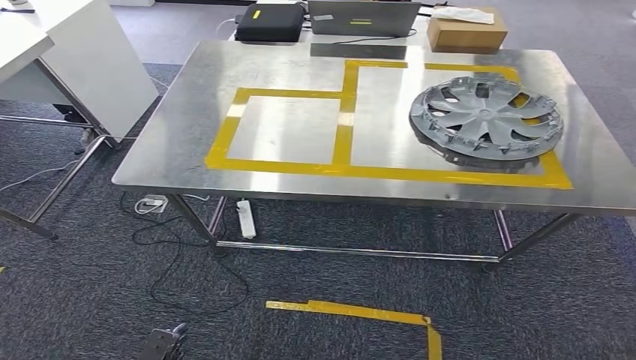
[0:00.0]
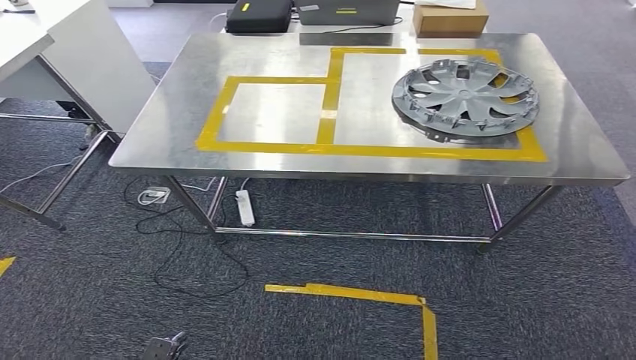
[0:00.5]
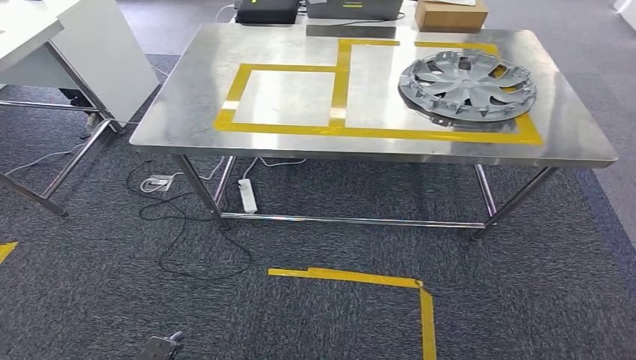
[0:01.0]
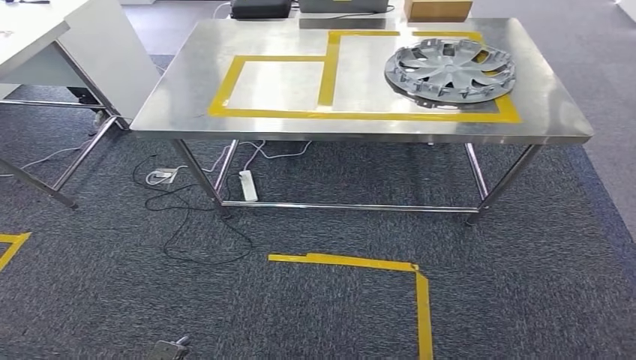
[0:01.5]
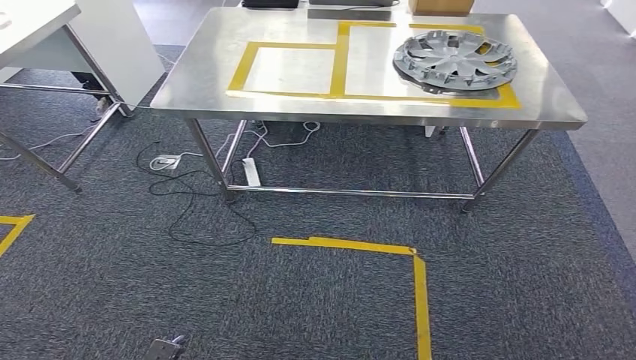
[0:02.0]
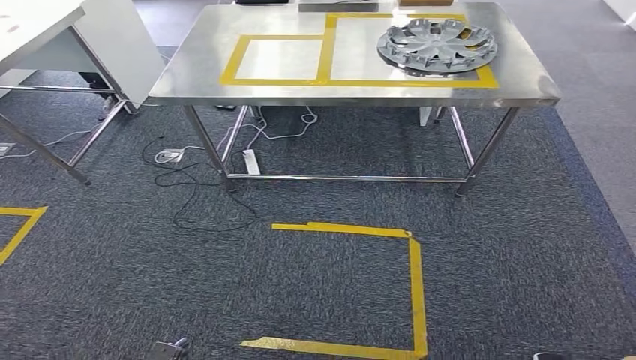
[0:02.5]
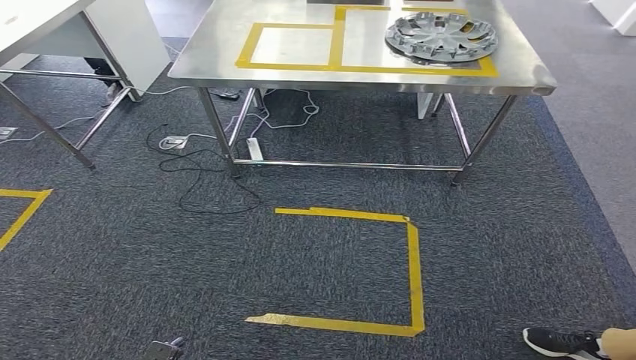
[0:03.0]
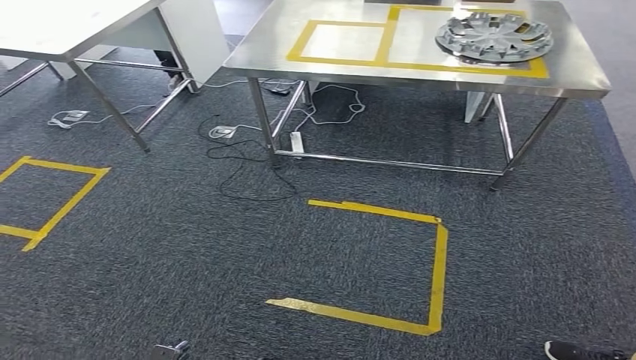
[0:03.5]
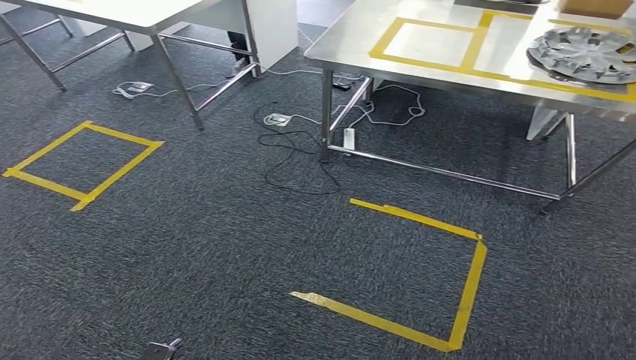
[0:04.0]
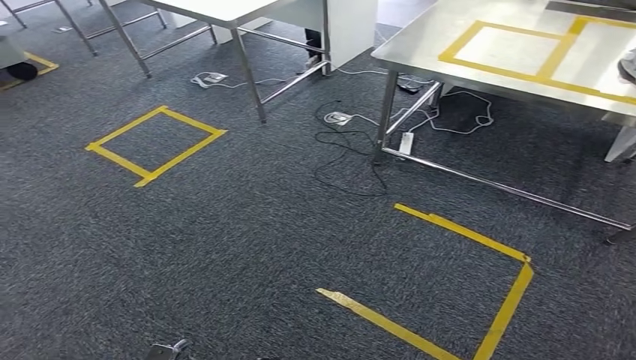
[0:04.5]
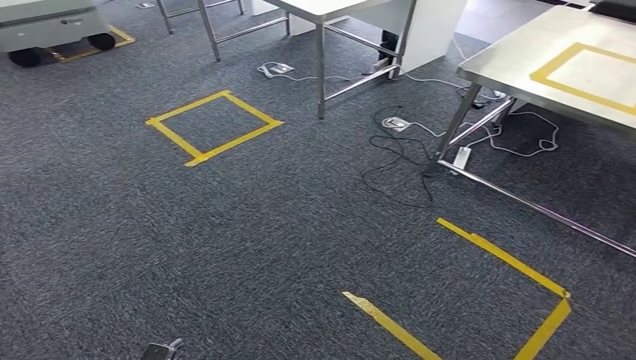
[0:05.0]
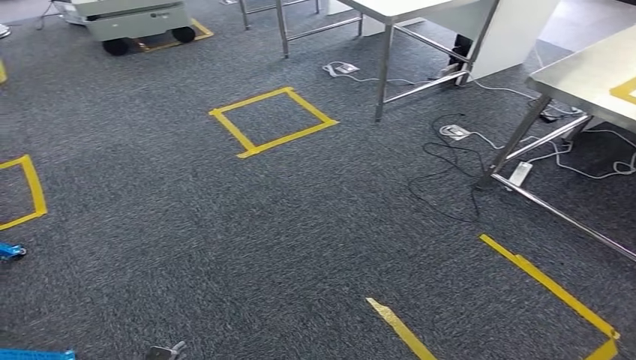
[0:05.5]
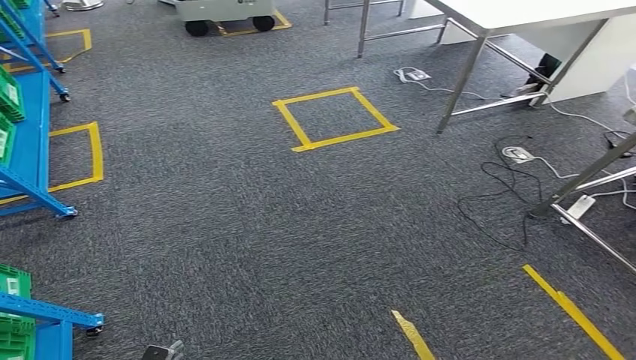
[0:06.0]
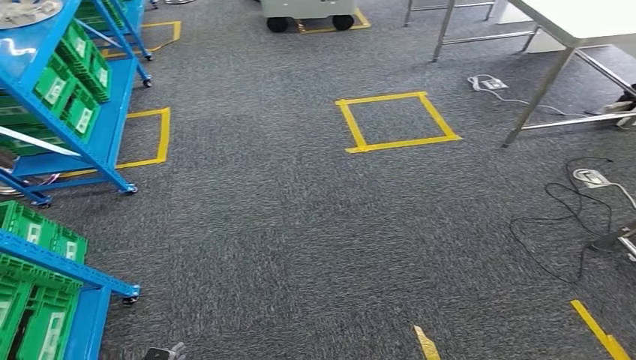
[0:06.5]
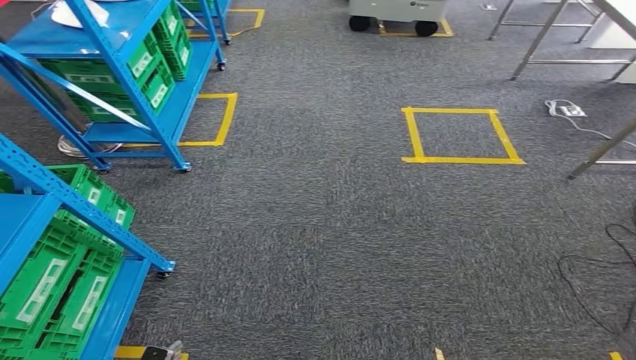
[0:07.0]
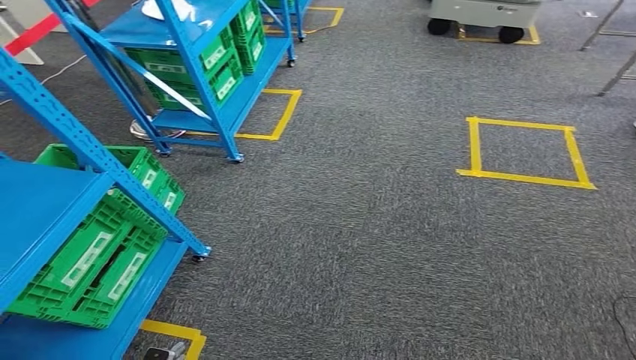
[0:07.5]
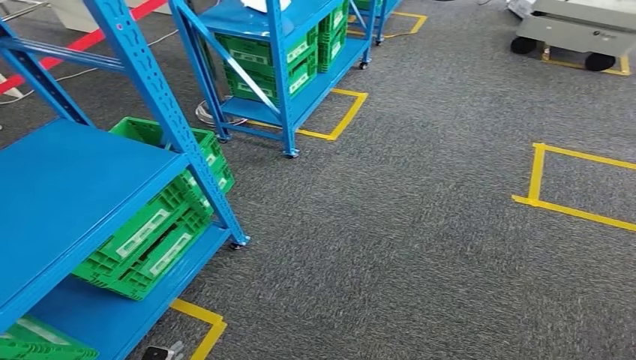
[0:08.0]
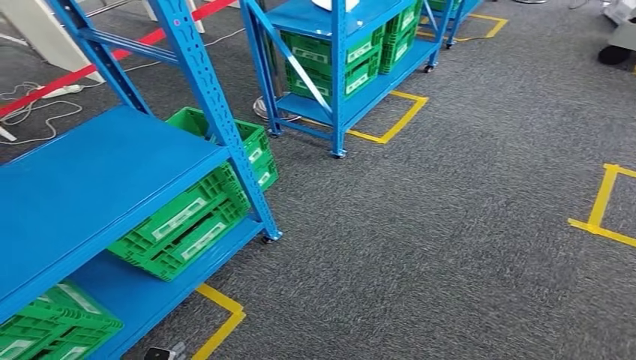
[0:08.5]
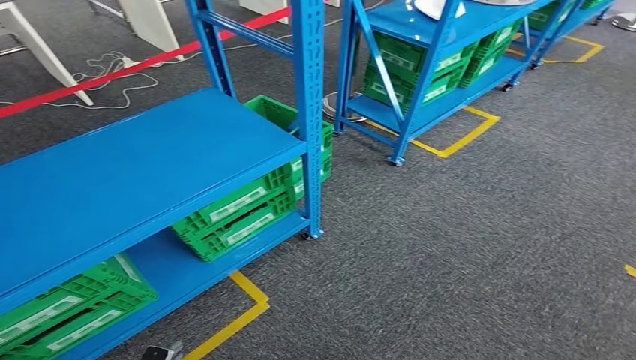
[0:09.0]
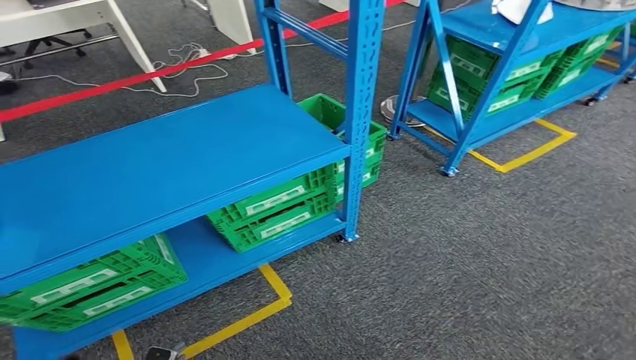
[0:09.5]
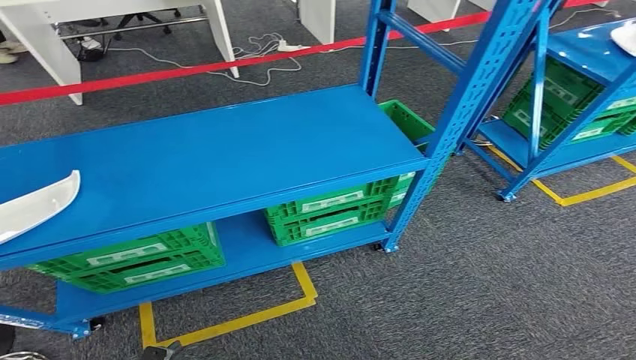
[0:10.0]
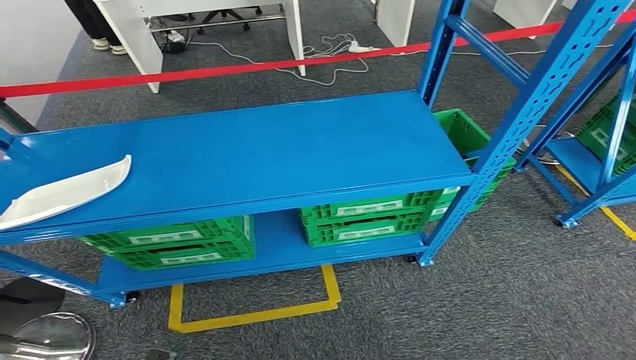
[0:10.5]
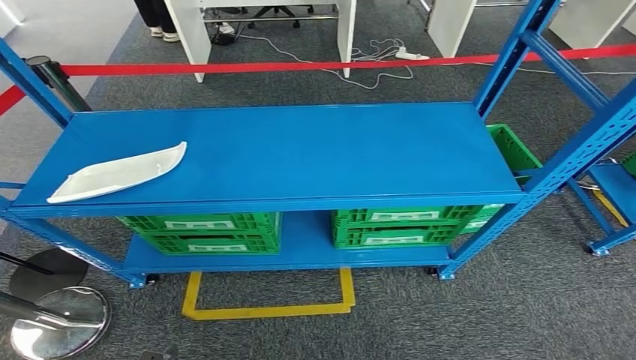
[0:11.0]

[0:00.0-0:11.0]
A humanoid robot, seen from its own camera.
Step, 0:00.0 to 0:11.0: Move to the initial position of the workbench.
